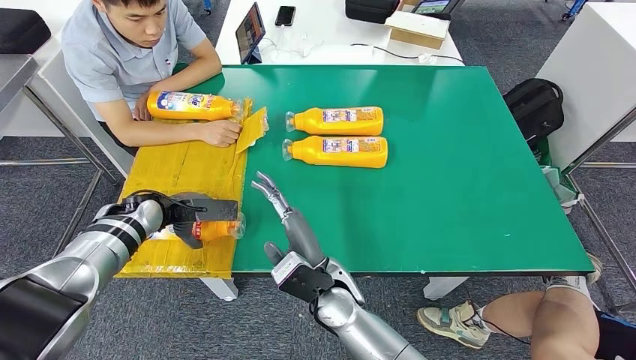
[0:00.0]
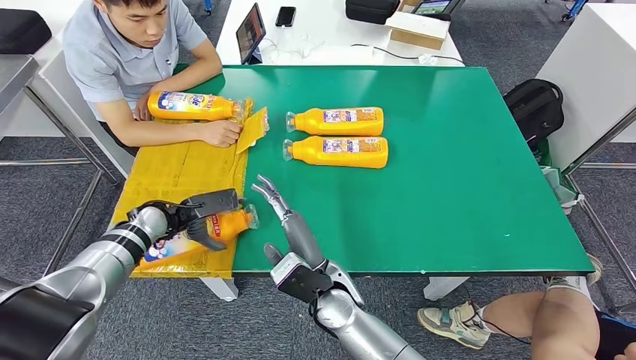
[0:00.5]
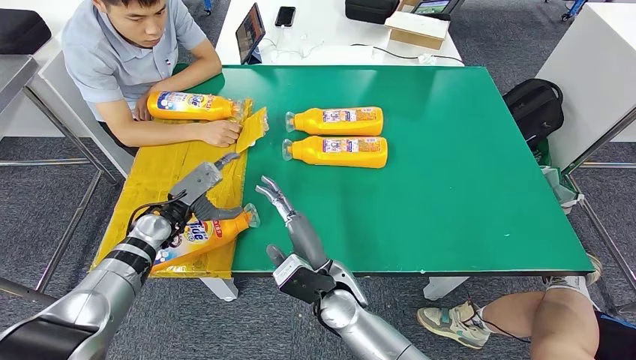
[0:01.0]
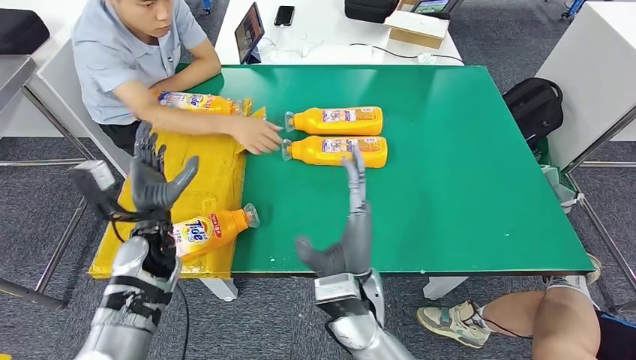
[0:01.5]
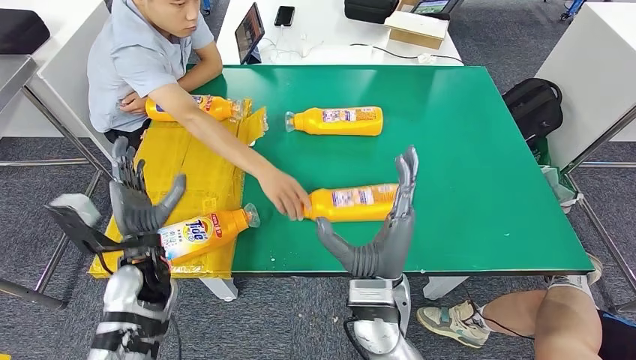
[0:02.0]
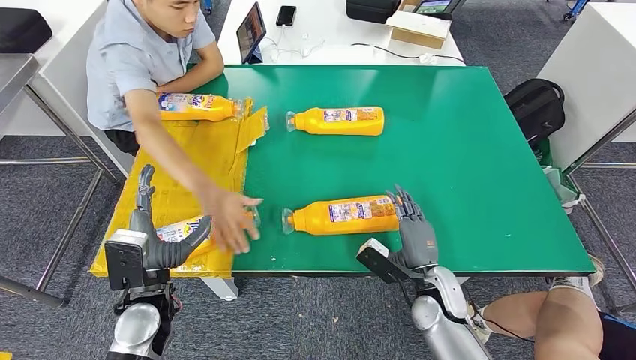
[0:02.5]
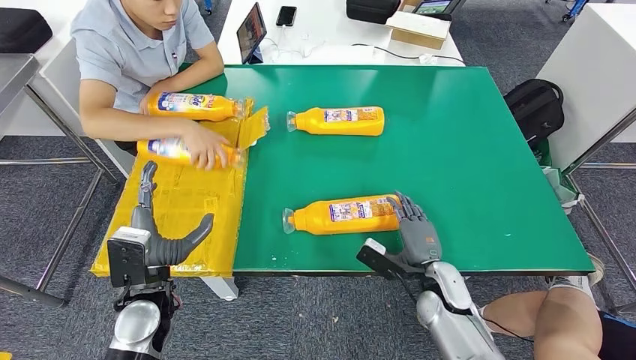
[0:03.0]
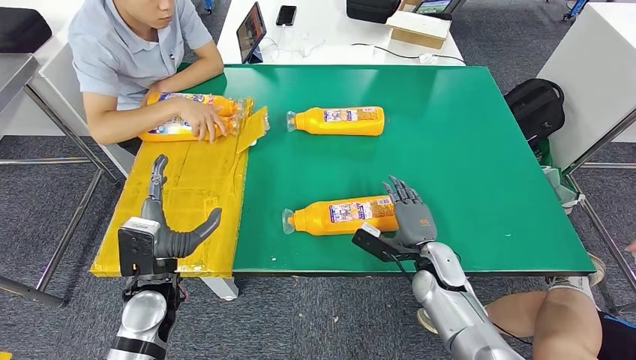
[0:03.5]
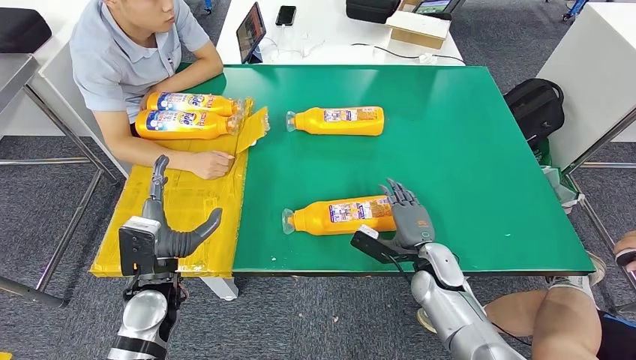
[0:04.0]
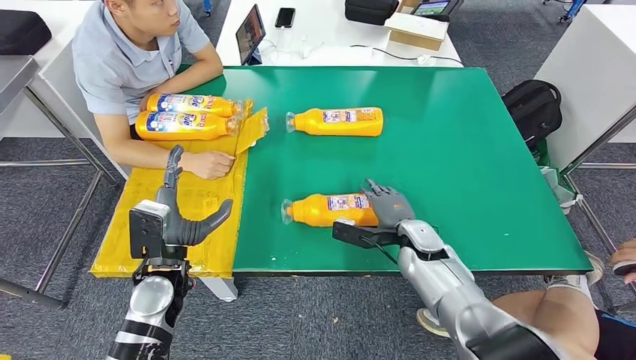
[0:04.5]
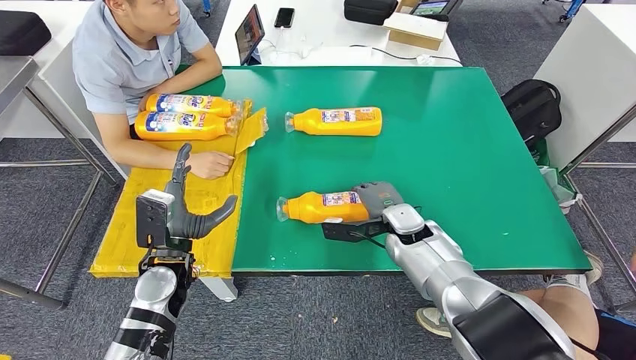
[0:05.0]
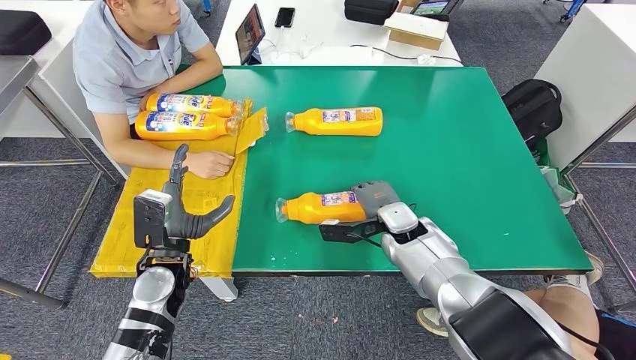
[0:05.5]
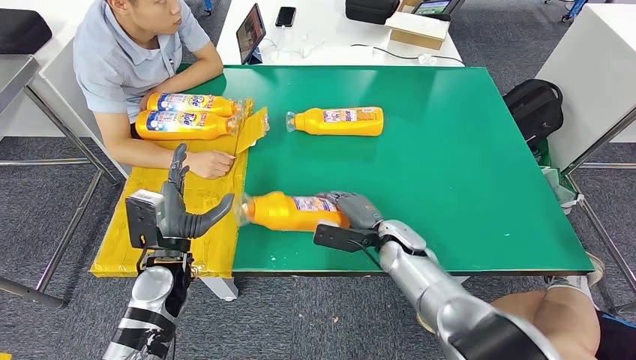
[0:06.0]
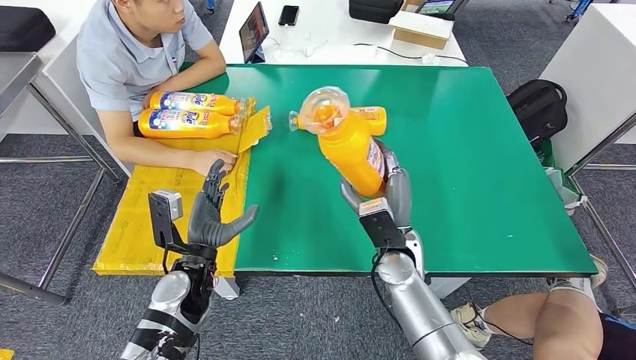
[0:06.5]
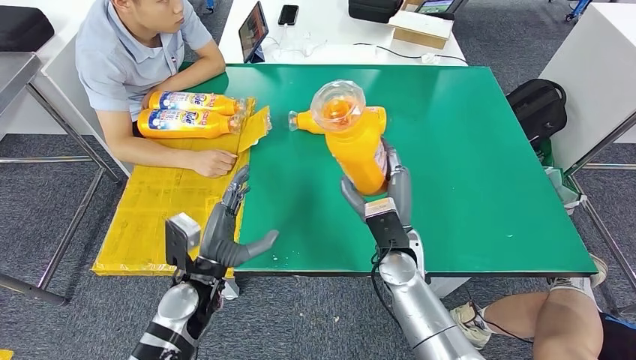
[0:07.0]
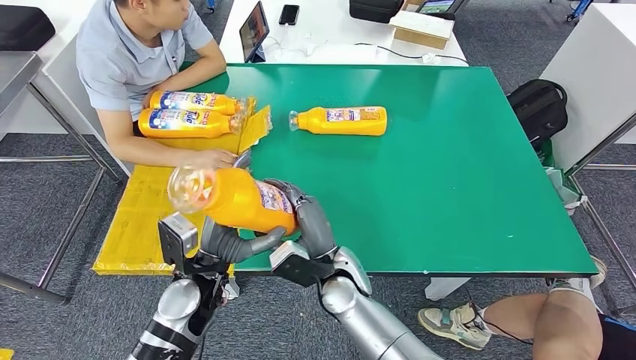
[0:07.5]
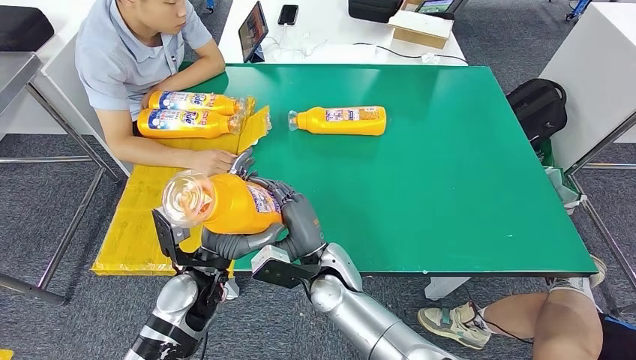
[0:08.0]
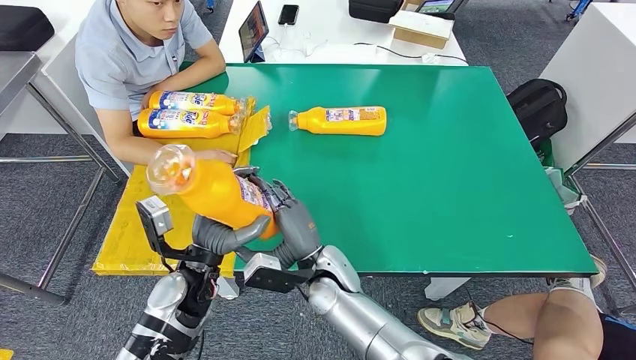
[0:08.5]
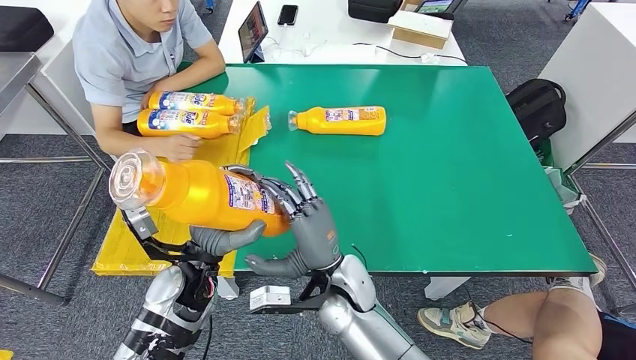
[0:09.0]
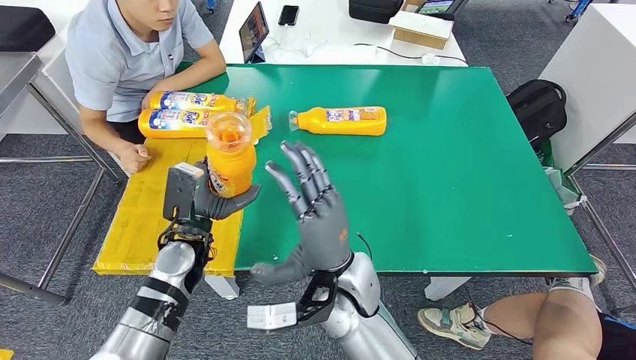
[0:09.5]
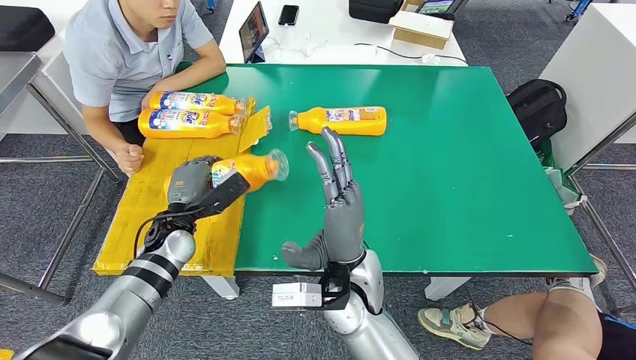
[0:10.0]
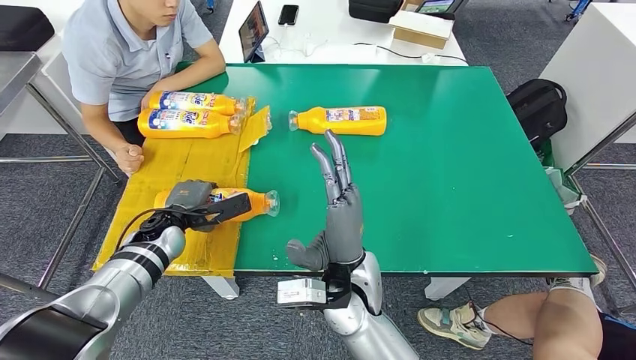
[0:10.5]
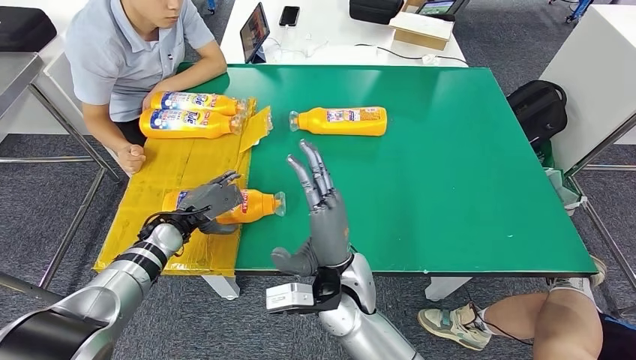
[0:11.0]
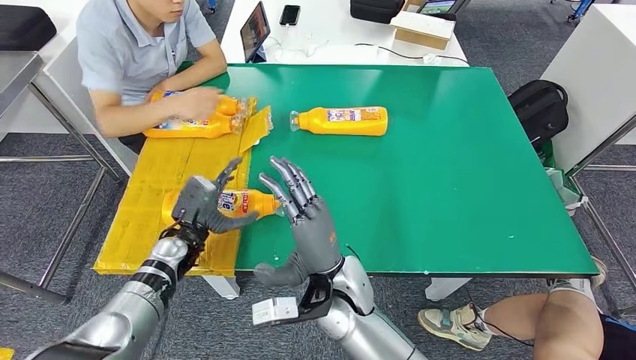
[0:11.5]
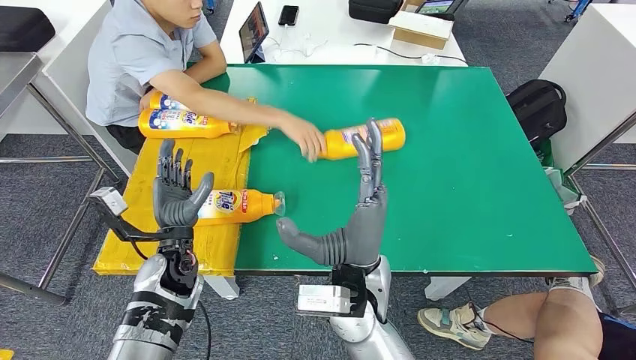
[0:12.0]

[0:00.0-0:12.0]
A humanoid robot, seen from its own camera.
Step, 0:00.0 to 0:02.0: Flip the fast-moving consumer goods bottle to the front side.
Step, 0:02.5 to 0:08.0: Pick up the fast-moving consumer goods bottle from the table.
0:04.0 to 0:06.0: The right hand shifts some 10 cm to the left.

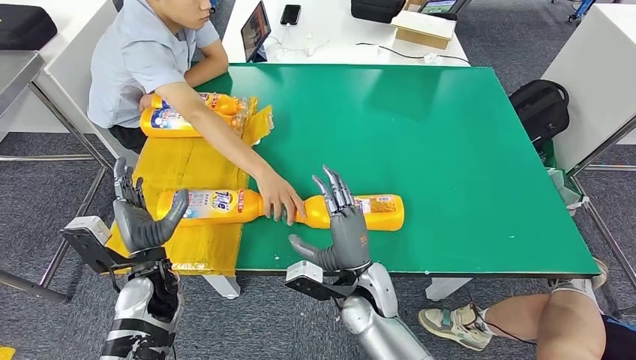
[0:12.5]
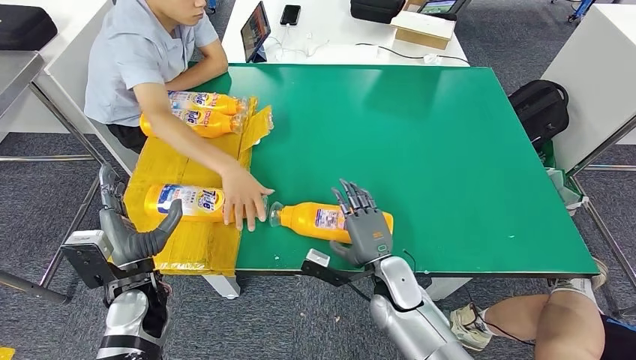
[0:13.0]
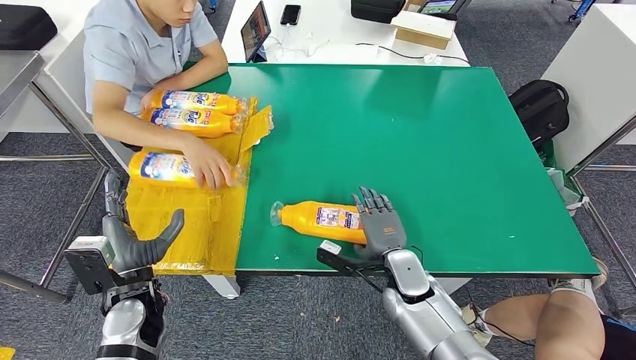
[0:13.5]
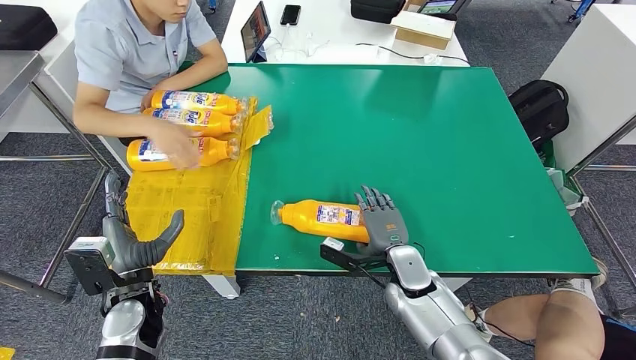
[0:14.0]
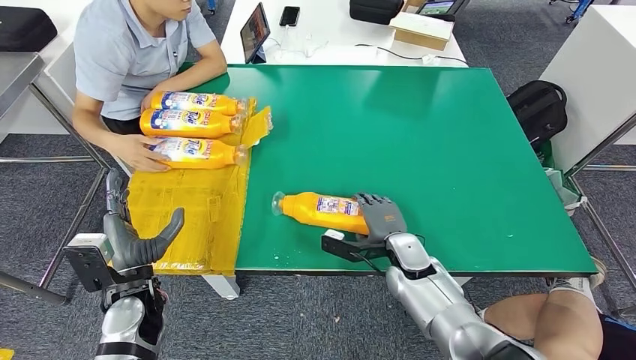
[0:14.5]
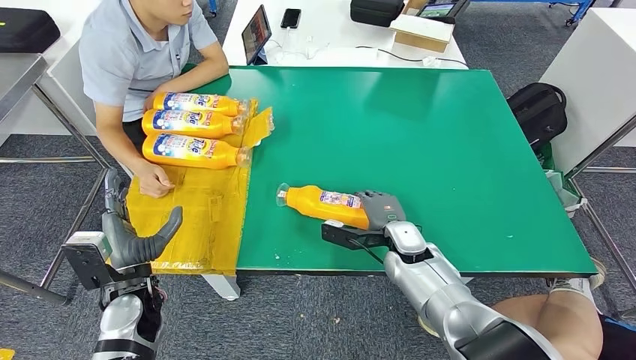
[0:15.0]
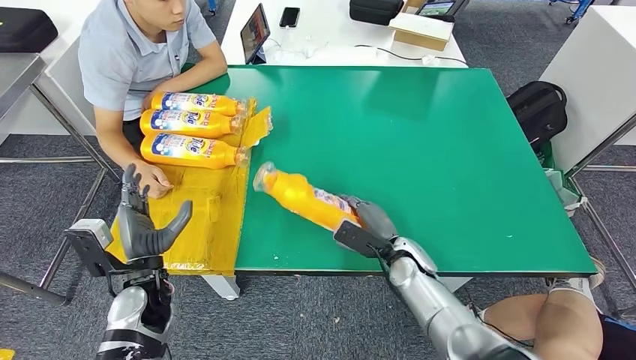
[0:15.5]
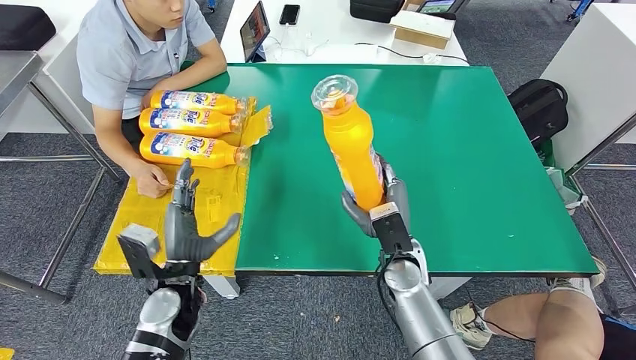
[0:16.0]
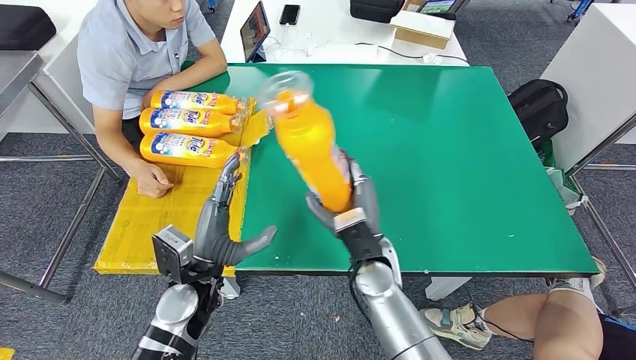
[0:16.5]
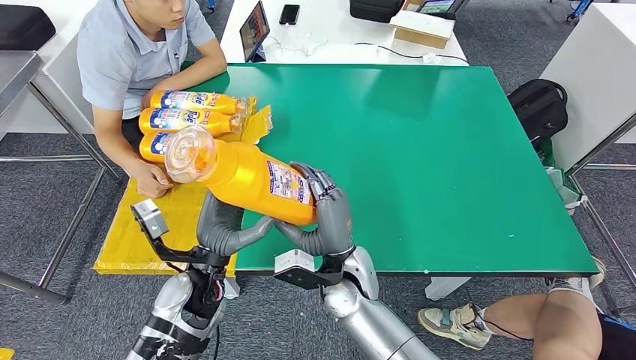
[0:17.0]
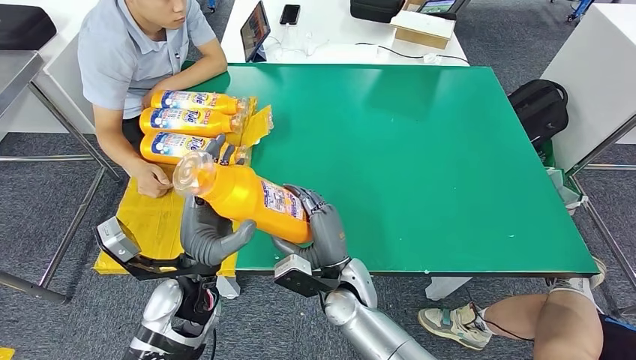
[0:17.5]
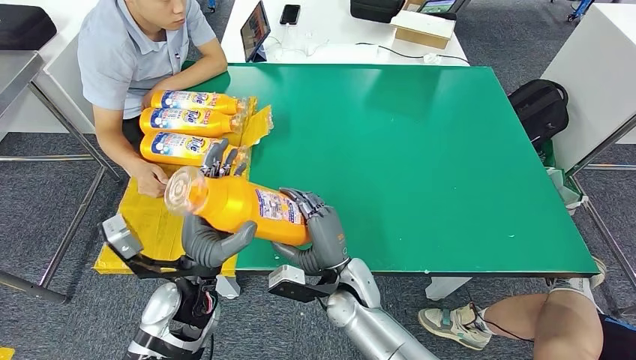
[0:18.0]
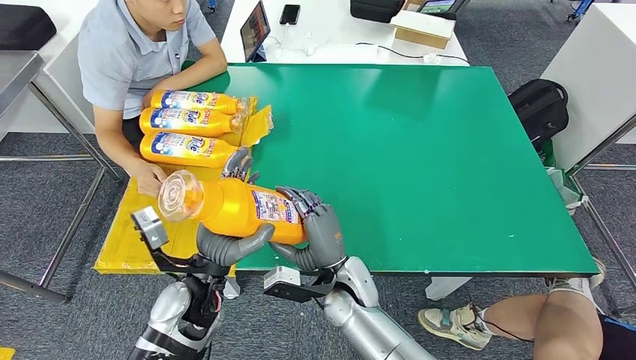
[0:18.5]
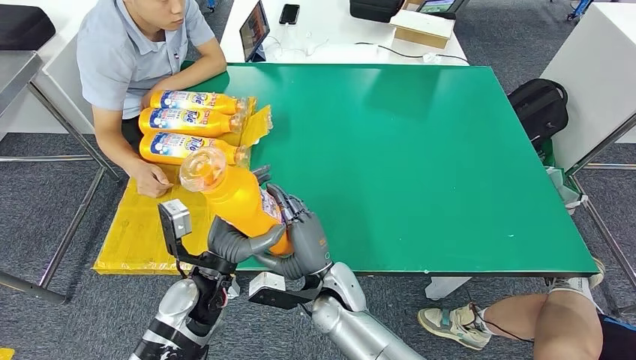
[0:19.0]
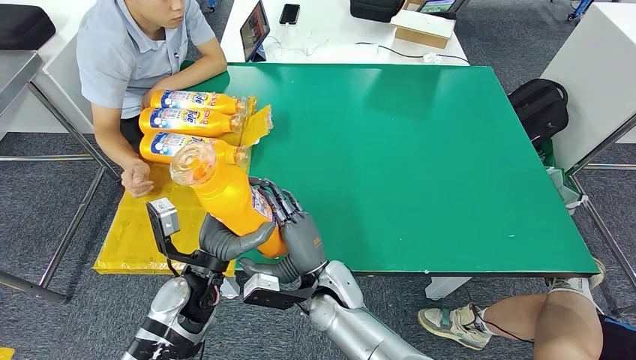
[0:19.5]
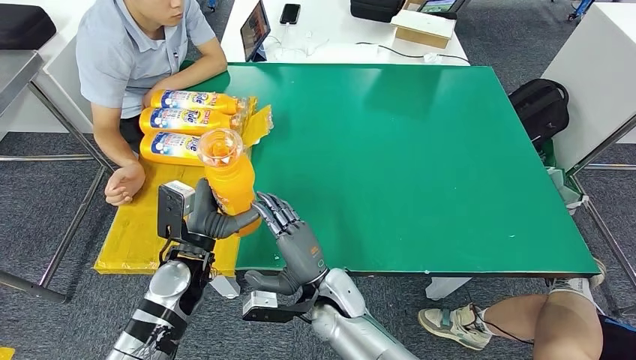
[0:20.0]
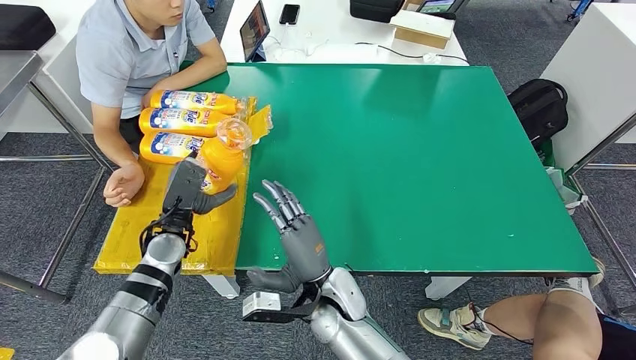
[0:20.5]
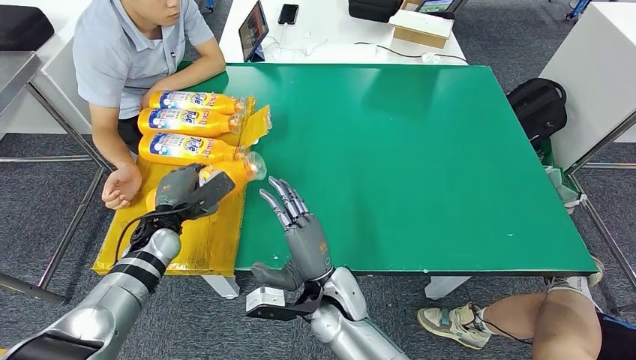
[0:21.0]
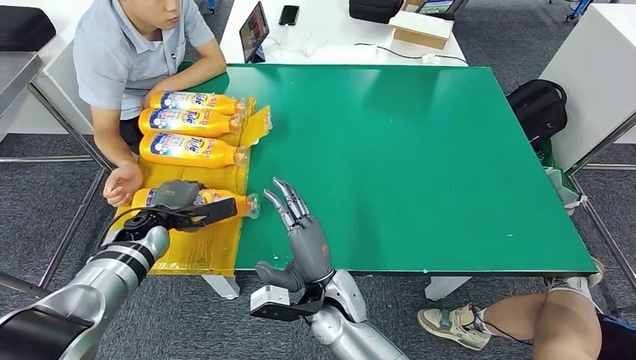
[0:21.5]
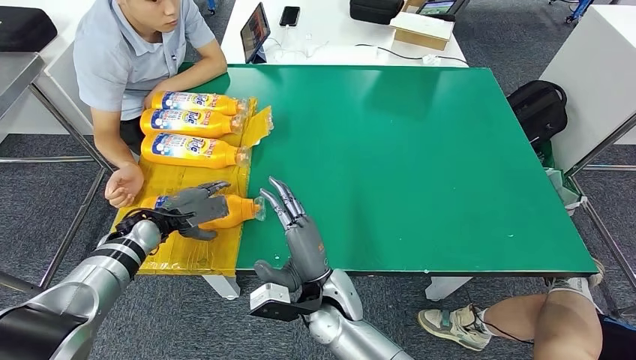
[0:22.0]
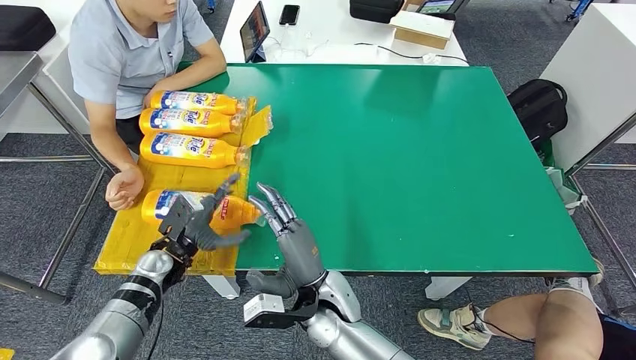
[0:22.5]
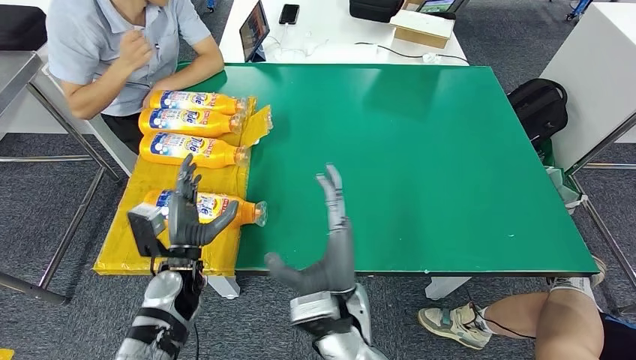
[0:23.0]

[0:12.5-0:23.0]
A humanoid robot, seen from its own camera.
Step, 0:12.5 to 0:18.5: Pick up the fast-moving consumer goods bottle from the table.
Step, 0:19.0 to 0:23.0: Flip the fast-moving consumer goods bottle to the front side.
0:16.5 to 0:19.0: The right hand shifts roughly 10 cm to the left.
0:19.0 to 0:21.0: The left hand travels to the left and forward by about 15 cm.
